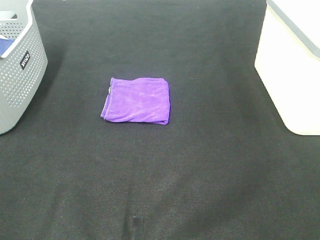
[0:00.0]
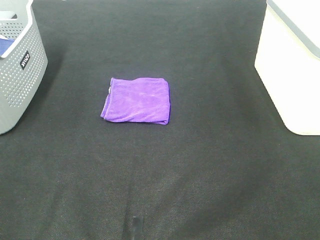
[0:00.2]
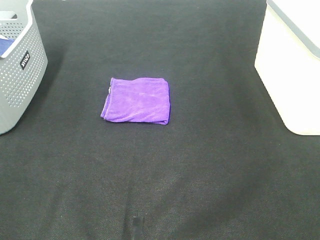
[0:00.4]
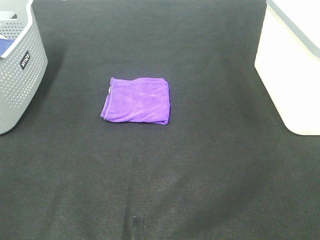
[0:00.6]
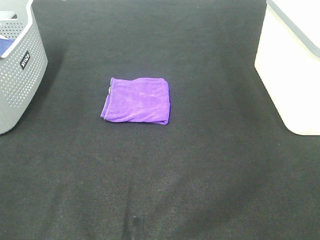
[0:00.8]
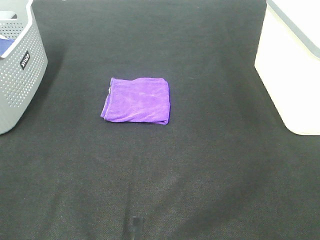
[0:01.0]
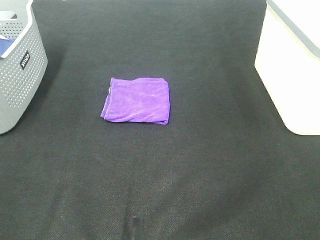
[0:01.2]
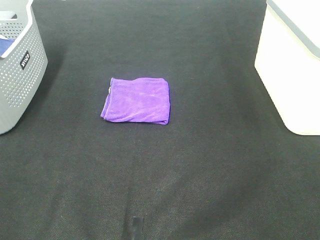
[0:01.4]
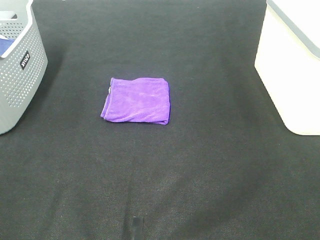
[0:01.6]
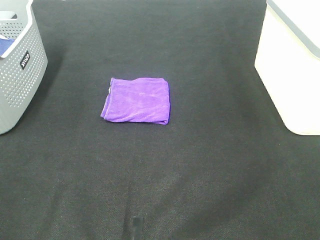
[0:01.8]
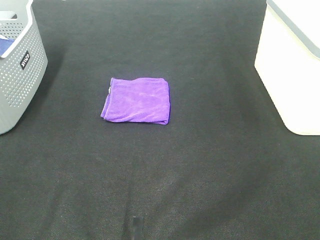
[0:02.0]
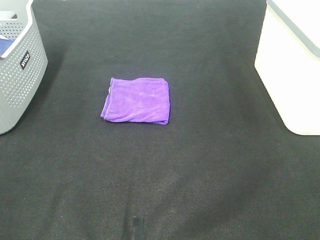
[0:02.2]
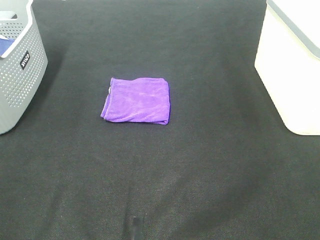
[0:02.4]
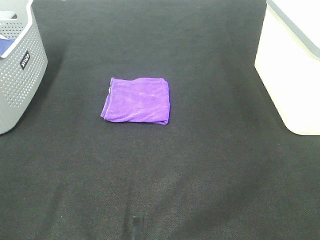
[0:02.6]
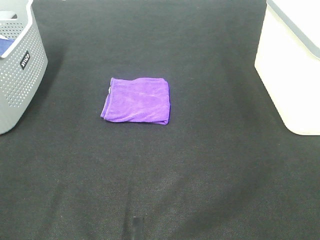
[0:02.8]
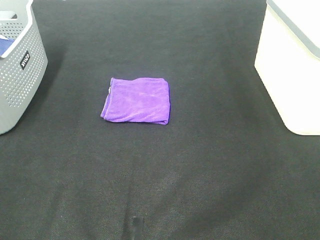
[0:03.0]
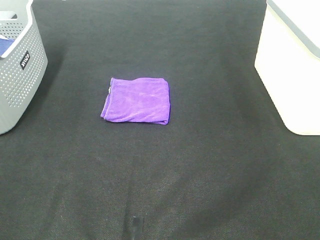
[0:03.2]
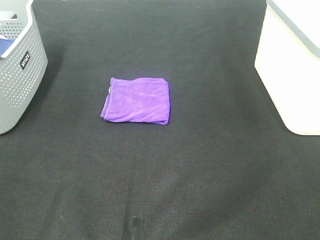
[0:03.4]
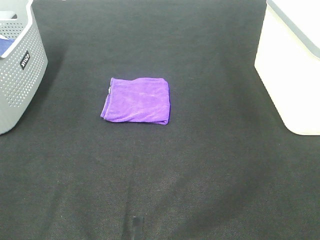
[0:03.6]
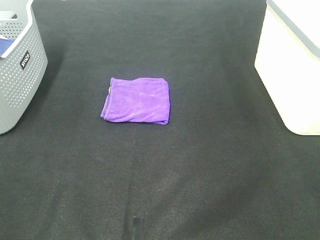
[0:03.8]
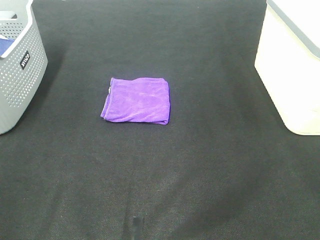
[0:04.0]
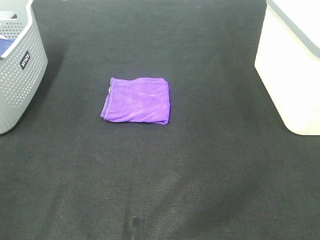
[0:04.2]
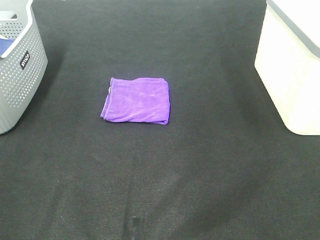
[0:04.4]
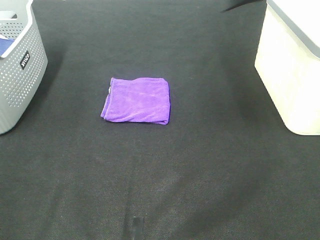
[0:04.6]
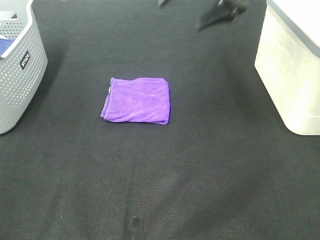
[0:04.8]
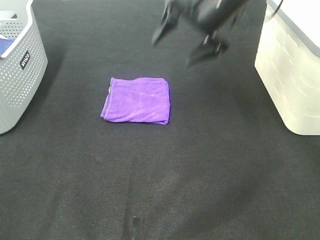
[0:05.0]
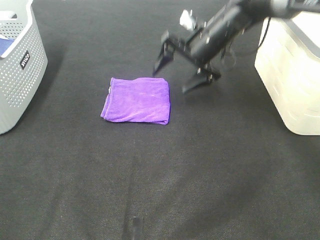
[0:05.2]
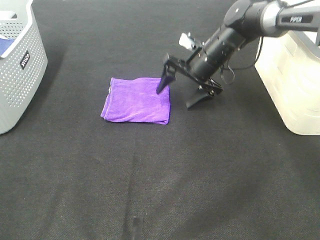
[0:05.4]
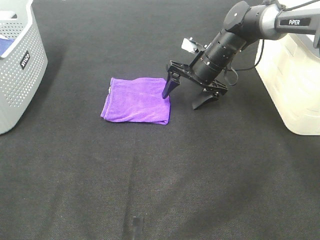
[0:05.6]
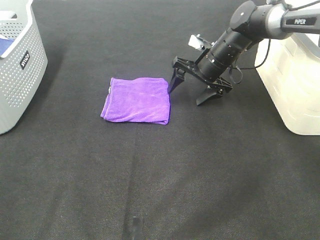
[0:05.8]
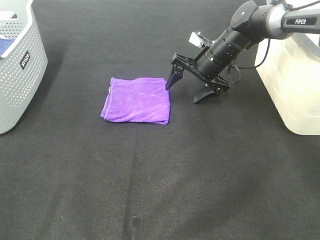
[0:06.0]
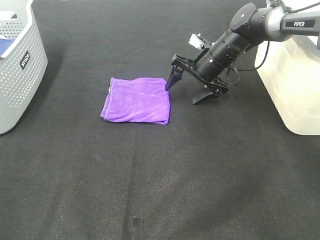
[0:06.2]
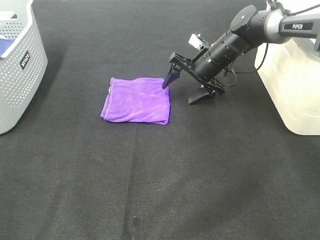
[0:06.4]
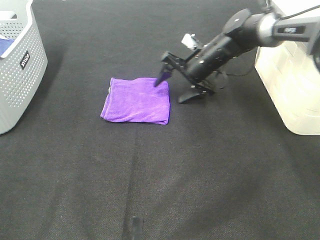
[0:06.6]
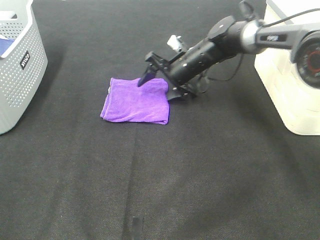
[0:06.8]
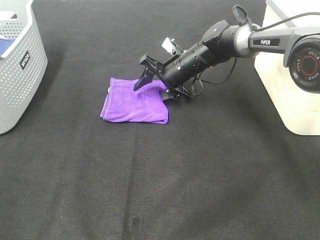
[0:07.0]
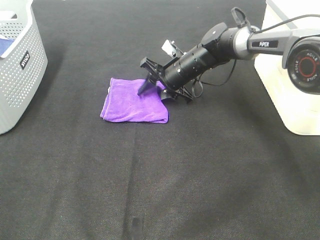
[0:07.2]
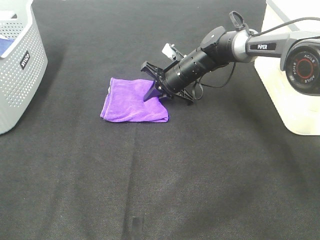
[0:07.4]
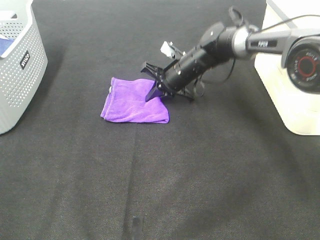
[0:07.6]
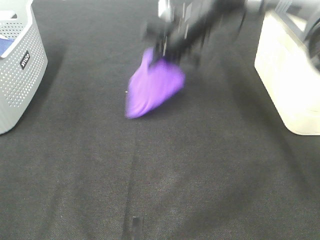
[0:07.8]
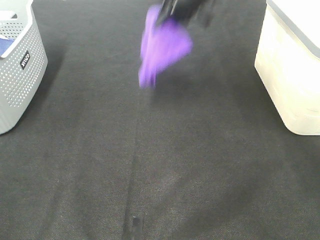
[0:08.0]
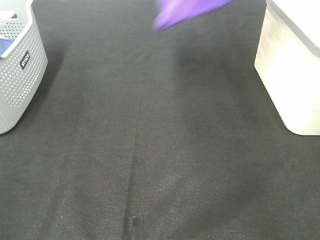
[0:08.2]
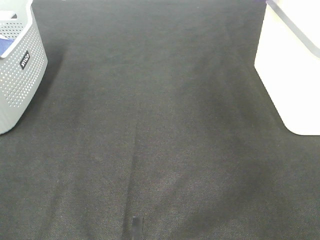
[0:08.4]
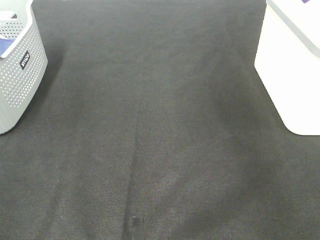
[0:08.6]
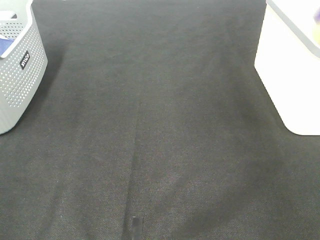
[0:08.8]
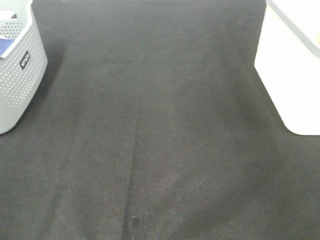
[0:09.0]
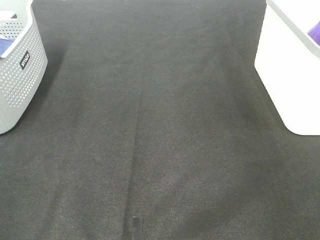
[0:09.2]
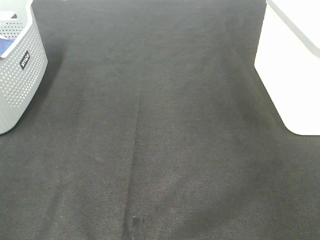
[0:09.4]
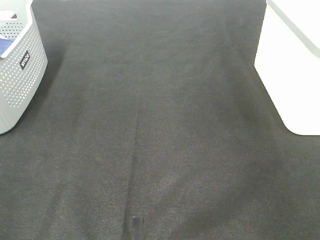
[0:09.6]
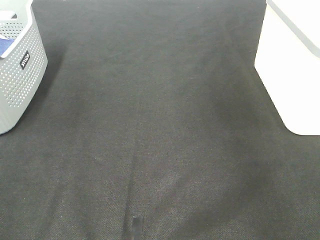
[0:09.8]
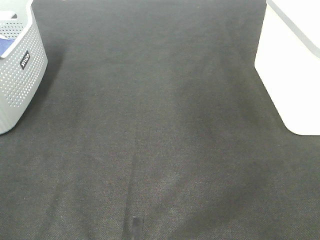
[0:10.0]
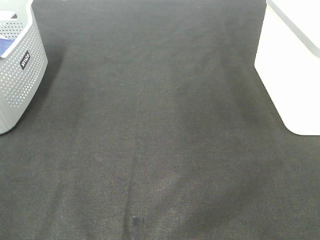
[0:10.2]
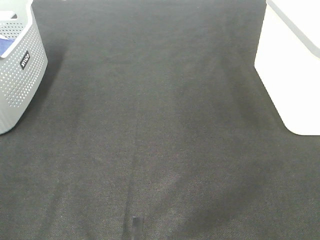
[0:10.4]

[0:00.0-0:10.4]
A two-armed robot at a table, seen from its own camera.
Step, 0:00.0 to 0:07.4: Right hand: grab the folded purple towel.
Step, 0:07.6 to 0:09.2: Right hand: place the purple towel in right basket.
0:00.0 to 0:03.0: Neither gripper changes place.
0:04.4 to 0:06.0: The right gripper heads downward and forward, covering roughly 30 cm.
0:06.0 to 0:07.4: The right gripper is displaced to the left by some 5 cm, and closes.
0:07.4 to 0:09.0: The right gripper moves to the right and upward, some 40 cm.

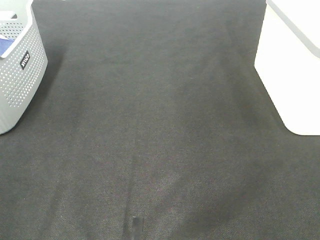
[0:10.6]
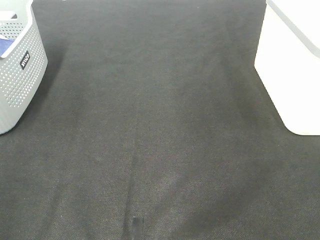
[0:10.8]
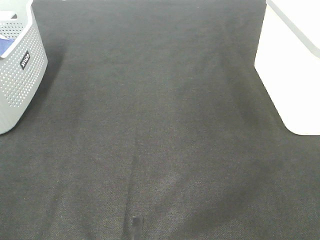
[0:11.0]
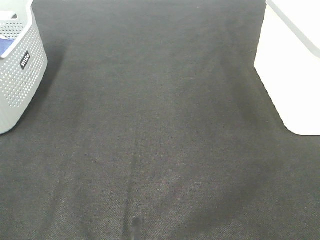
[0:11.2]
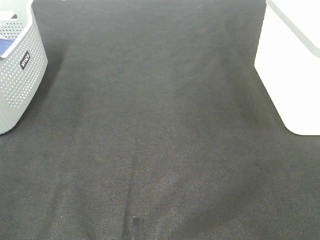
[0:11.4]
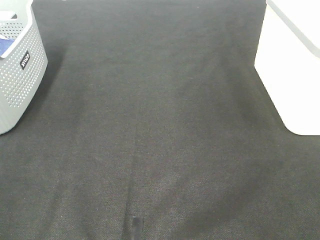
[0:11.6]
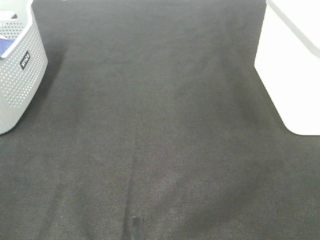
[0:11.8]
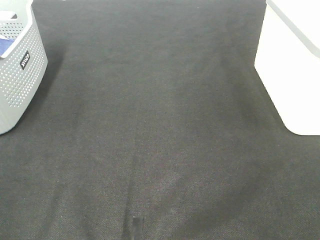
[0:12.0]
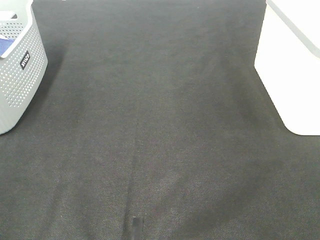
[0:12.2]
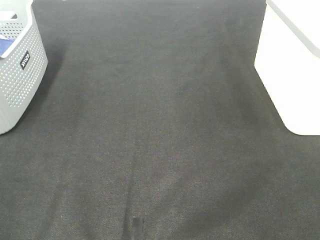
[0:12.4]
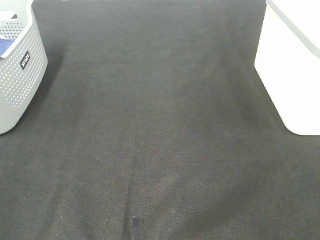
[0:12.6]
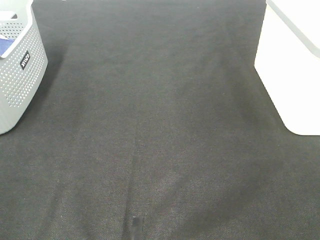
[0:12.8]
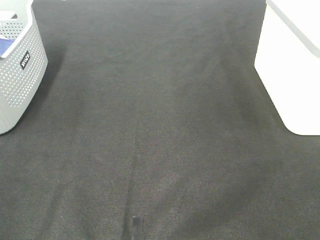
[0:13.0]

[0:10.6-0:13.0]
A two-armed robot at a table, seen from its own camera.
0:11.8 to 0:13.0: Both grippers stay put.

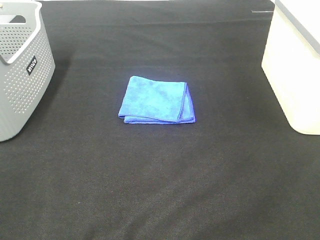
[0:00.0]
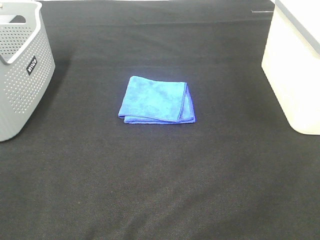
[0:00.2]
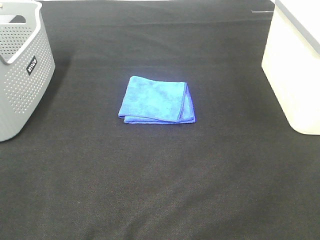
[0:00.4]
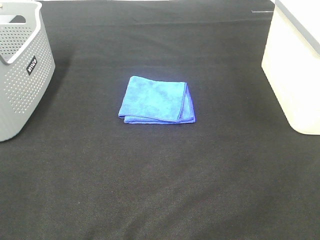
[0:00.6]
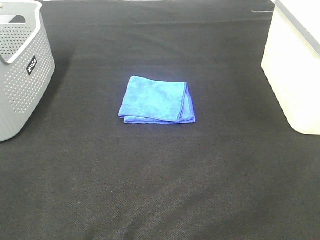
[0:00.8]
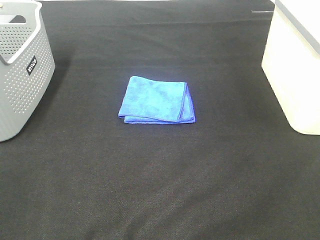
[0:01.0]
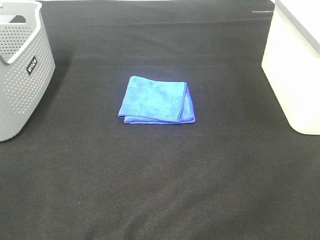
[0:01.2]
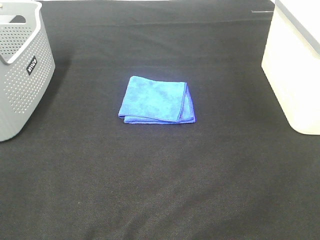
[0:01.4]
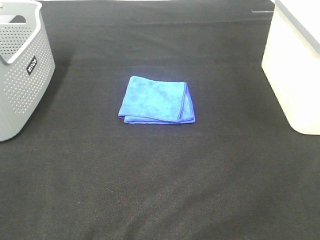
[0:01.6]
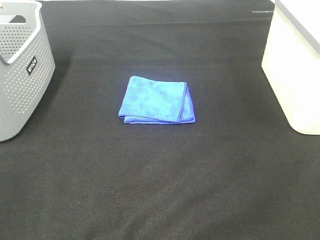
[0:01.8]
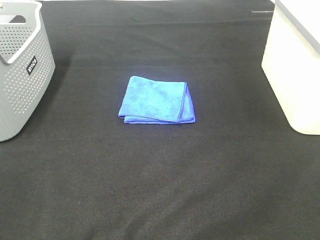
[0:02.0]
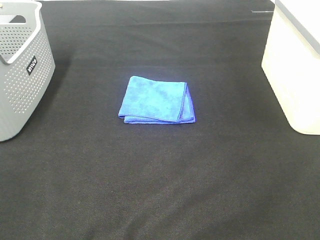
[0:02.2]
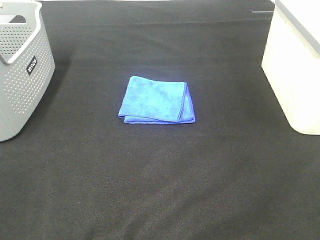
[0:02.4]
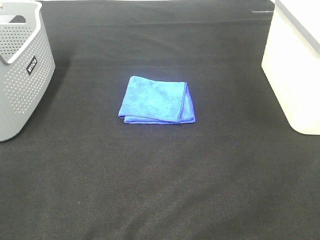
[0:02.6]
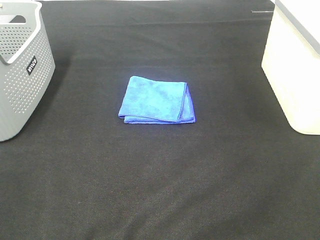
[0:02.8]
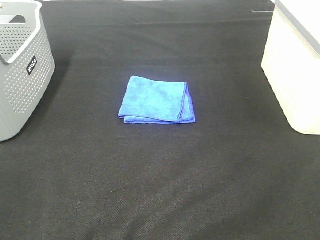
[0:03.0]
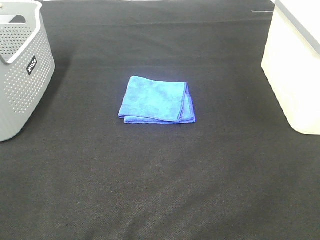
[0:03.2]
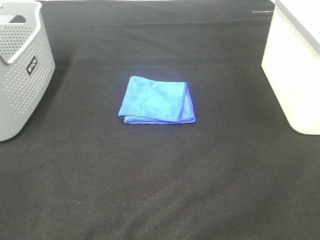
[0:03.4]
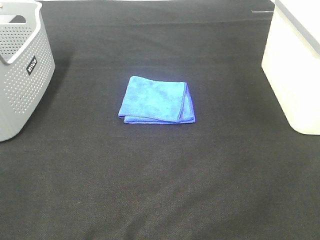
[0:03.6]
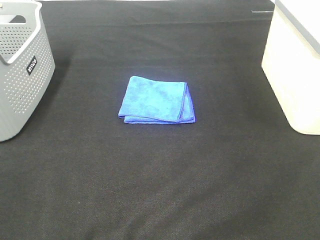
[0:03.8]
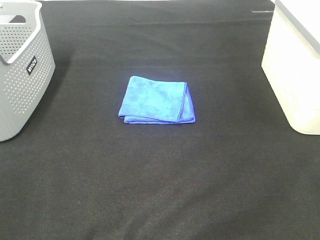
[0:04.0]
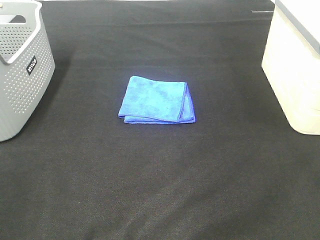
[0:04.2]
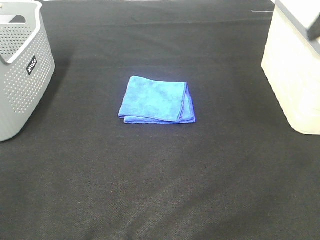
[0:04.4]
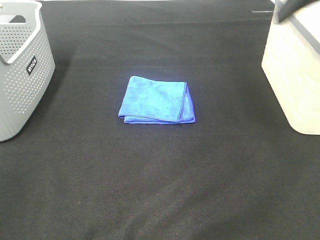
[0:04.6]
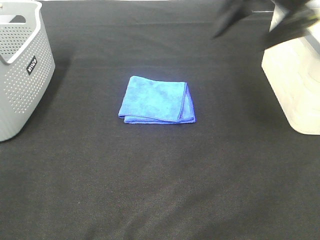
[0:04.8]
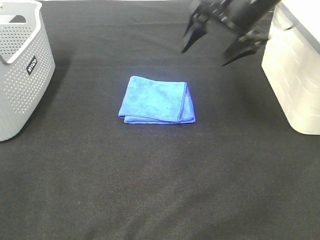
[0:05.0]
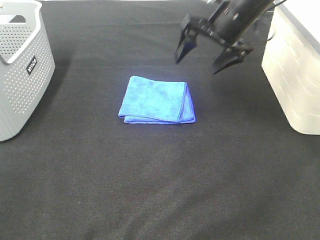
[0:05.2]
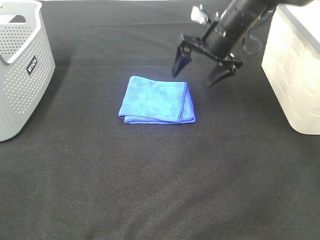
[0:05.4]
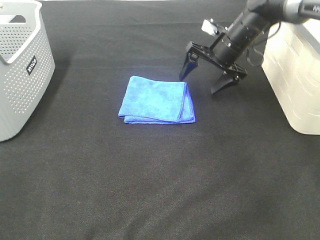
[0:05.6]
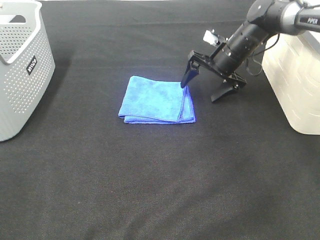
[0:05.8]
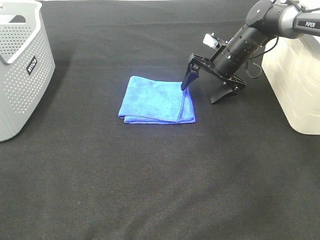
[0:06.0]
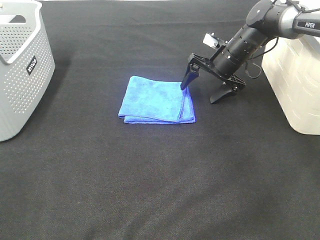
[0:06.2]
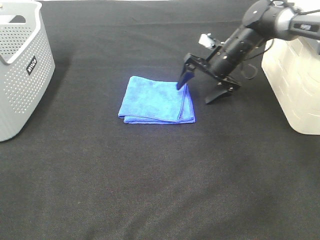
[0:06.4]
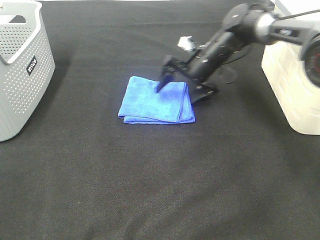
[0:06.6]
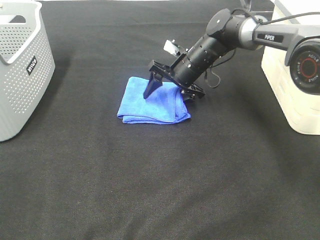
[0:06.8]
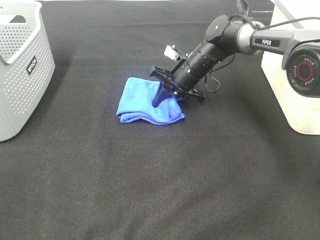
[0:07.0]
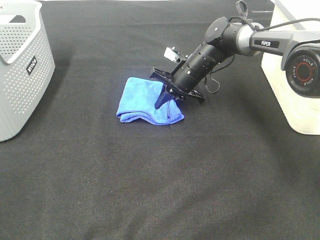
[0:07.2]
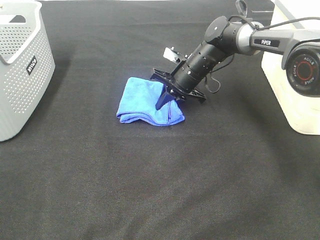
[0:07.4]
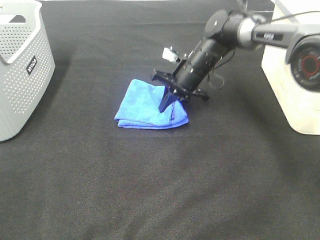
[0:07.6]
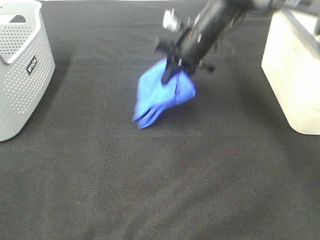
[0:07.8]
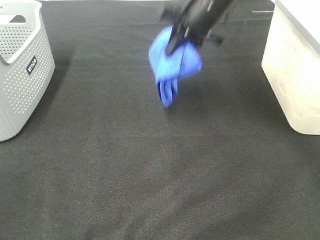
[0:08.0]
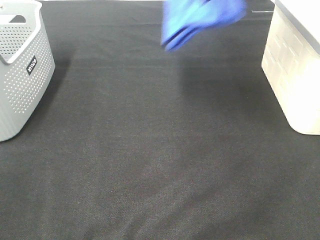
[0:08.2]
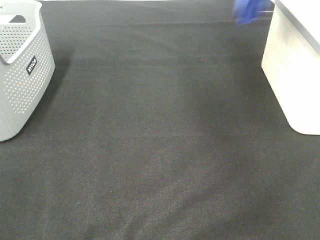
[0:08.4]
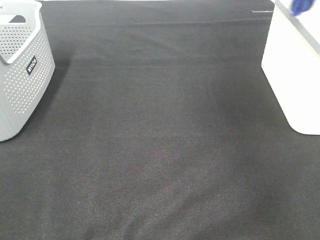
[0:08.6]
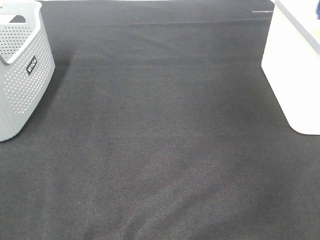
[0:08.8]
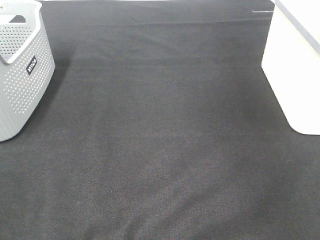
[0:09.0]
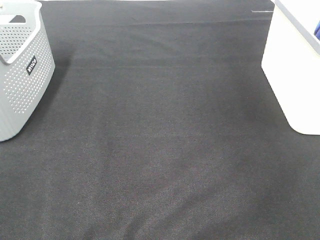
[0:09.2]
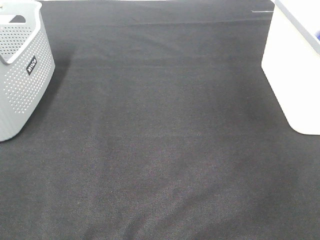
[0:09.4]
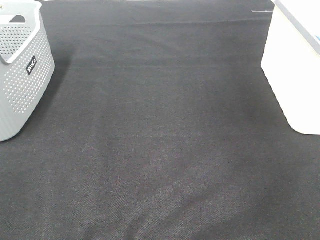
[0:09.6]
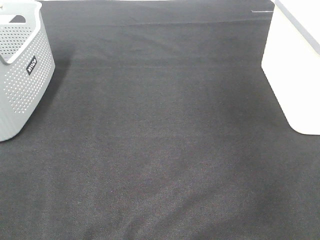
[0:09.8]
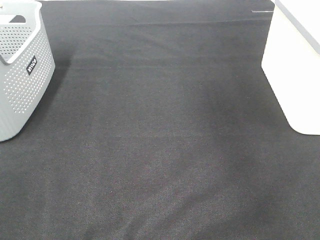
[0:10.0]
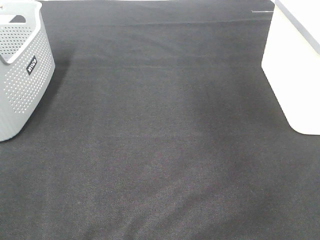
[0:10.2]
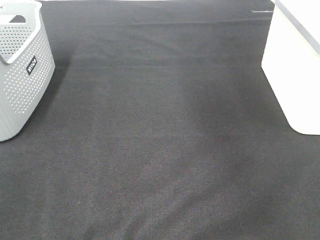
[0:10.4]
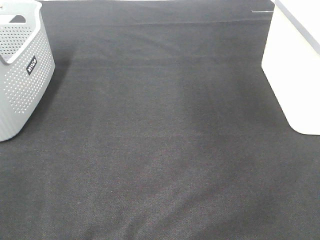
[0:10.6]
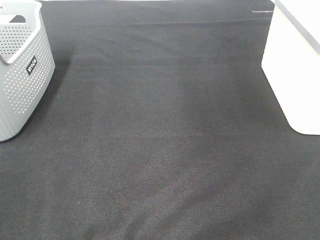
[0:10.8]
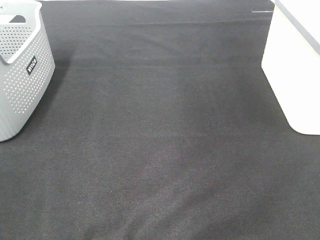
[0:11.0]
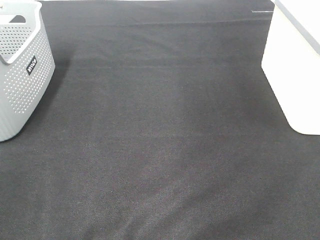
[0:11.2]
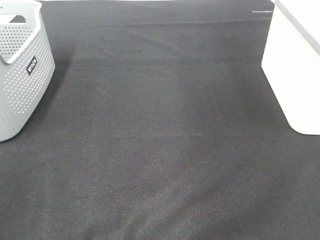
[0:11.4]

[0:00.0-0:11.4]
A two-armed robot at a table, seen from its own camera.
Step, 0:00.0 to 0:07.4: Right hand: grab the folded blue towel.
Step, 0:07.6 to 0:09.4: Right hand: place the blue towel in right basket.
0:00.0 to 0:02.8: The two grippers keep their place.
0:04.2 to 0:05.6: The right gripper travels forward, downward and to the left by some 35 cm.
0:05.6 to 0:07.2: The right gripper goes about 10 cm to the left and downward, and closes.
0:07.2 to 0:08.6: The right gripper goes some 40 cm upward and to the right.
